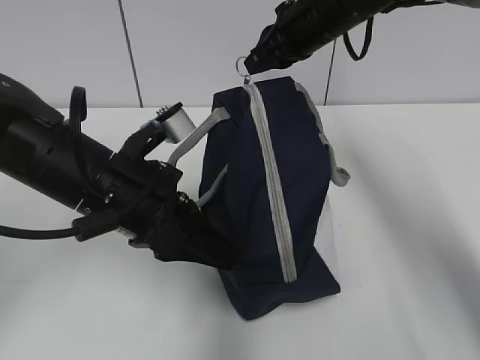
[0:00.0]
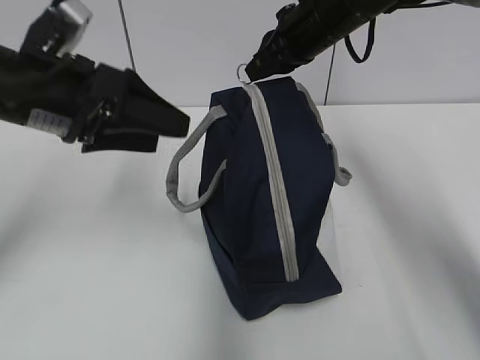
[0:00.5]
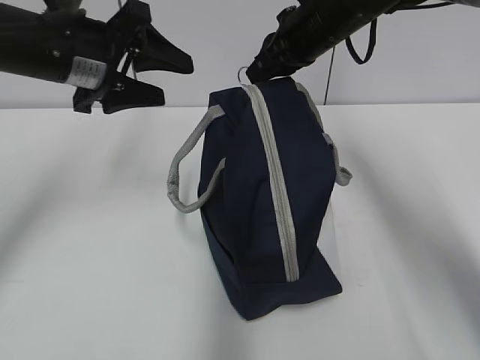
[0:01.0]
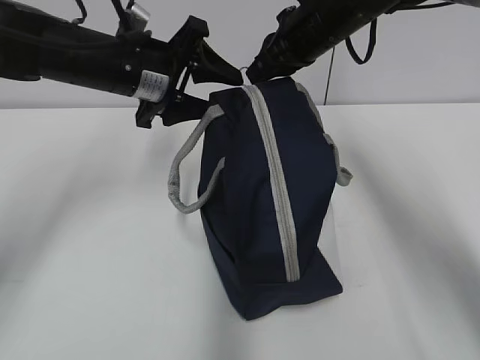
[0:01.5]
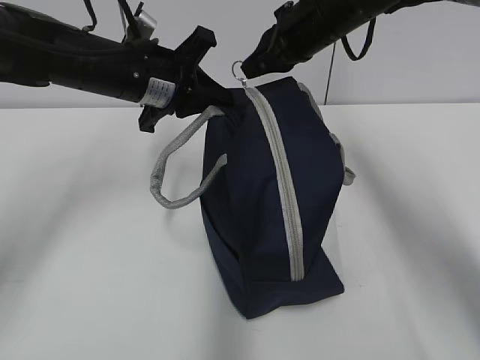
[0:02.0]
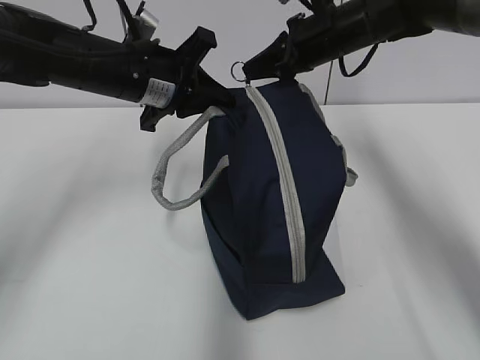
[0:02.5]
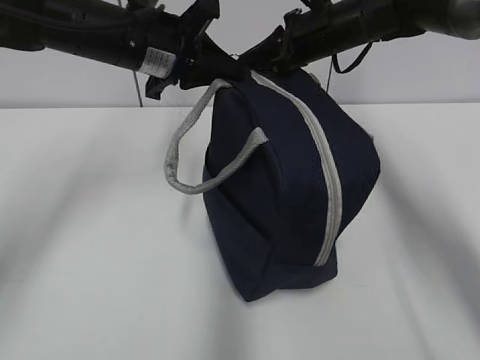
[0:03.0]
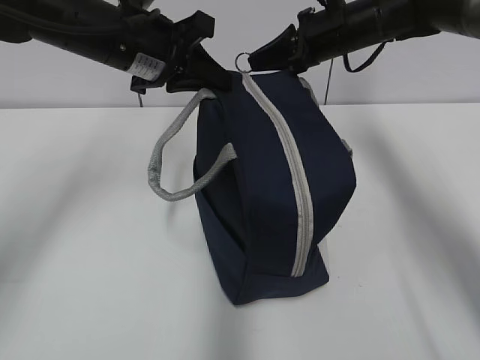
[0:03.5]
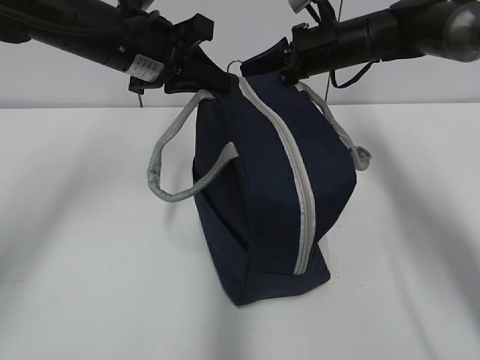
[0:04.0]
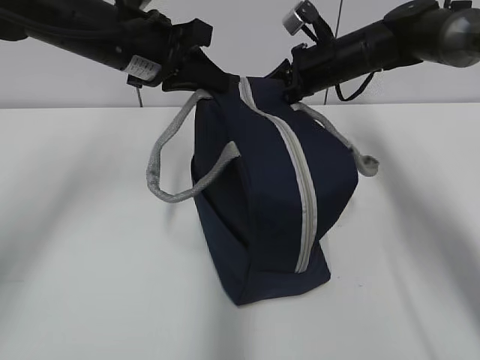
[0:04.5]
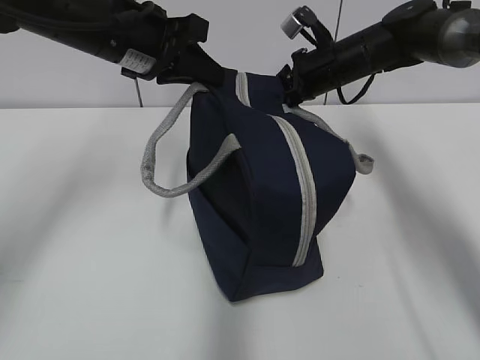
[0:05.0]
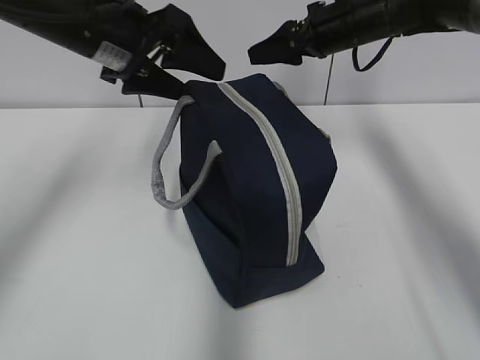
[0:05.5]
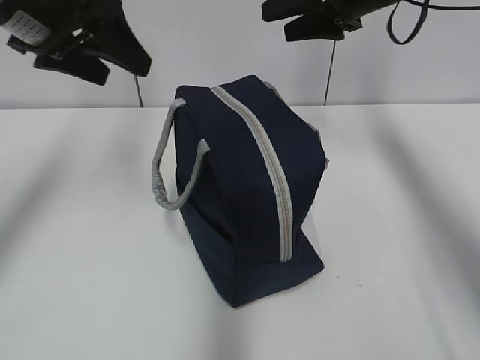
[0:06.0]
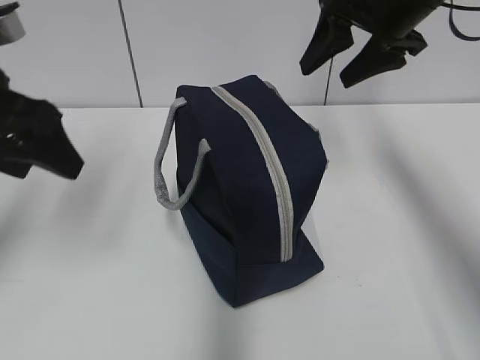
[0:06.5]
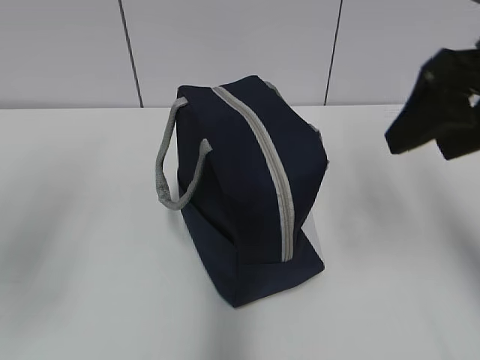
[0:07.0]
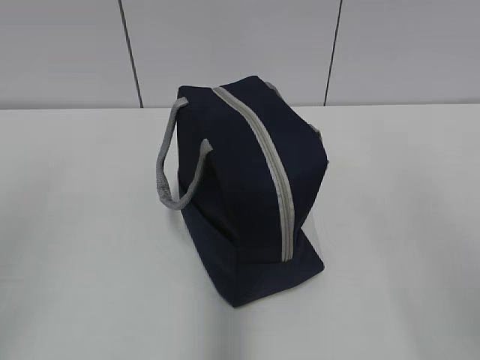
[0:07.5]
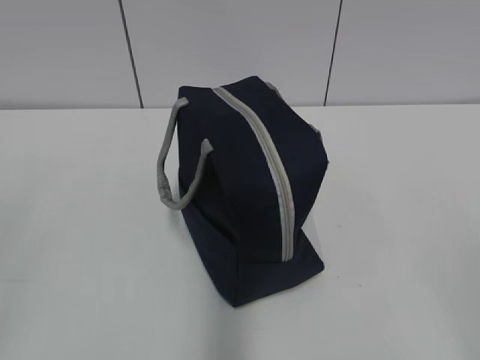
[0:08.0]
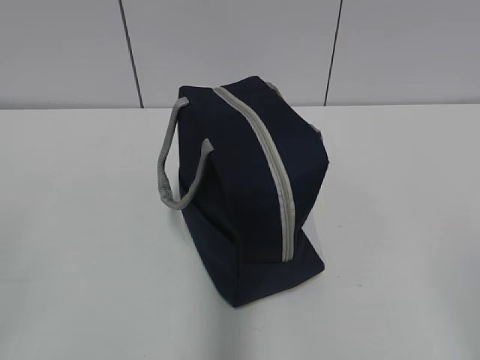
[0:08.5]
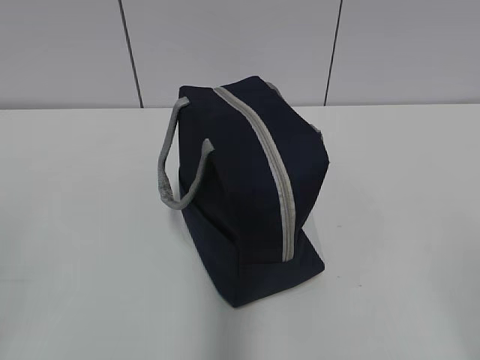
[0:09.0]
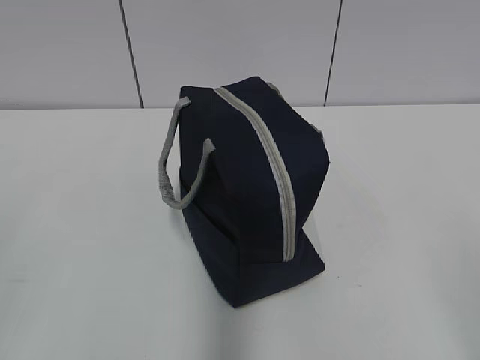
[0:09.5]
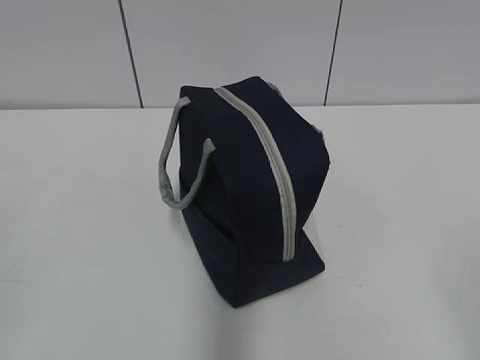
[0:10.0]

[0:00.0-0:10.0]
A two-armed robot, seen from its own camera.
Step, 0:00.0 to 0:05.0: Pull the zipper with your right hand.
0:00.0 to 0:02.0: The left gripper shifts about 15 cm forward, and opens and closes again.
0:02.0 to 0:04.0: The right gripper shifts about 5 cm downward.
0:04.0 to 0:06.0: The right gripper travels upward by about 10 cm, and opens. Meanwhile the left gripper goes approximately 10 cm to the left and upward, and opens.
0:06.0 to 0:08.0: The grippers both shift backward by about 40 cm.
0:08.0 to 0:10.0: The left gripper is displaced downward by some 5 cm.
